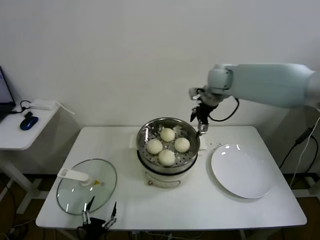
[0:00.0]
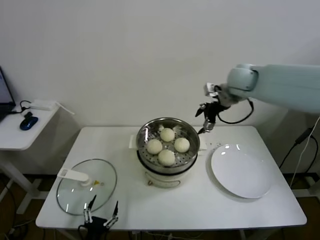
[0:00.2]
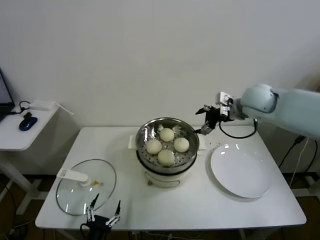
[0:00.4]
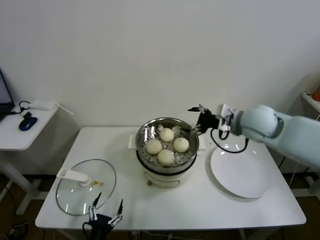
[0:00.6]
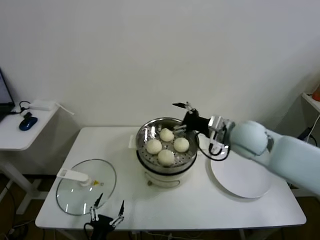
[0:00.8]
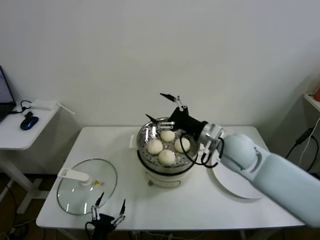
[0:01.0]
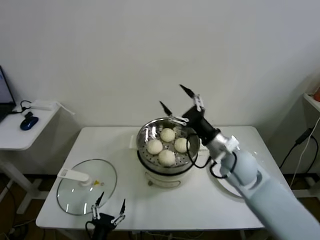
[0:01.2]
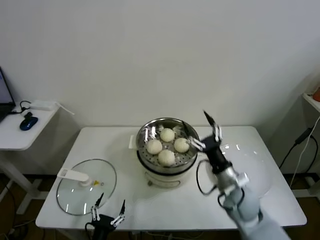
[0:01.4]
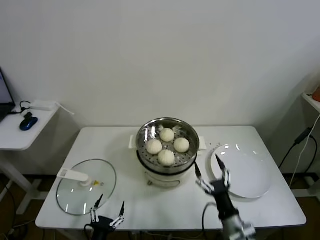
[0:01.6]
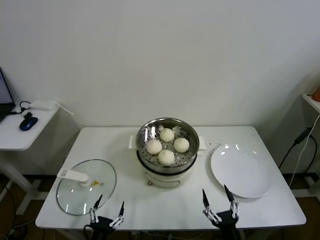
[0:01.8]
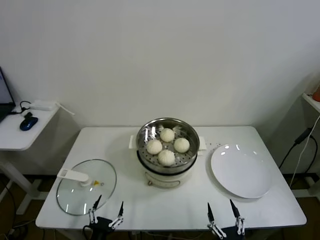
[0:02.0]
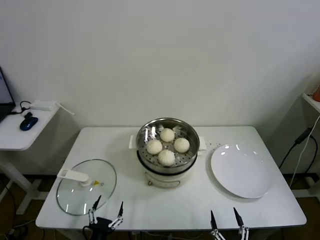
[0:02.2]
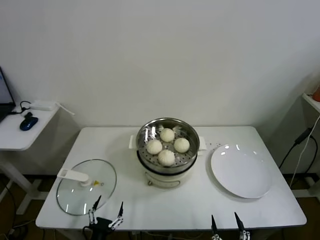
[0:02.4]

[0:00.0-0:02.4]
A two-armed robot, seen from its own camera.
Task of the whole recording: take steamed baozi put them in steamer.
0:00.0 to 0:01.2: The right gripper shifts approximately 25 cm backward and downward.
0:01.2 to 0:02.4: The right gripper travels backward and downward by about 40 cm.

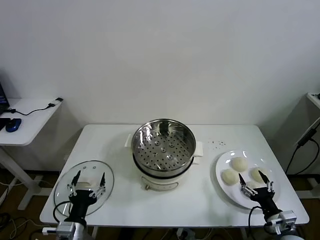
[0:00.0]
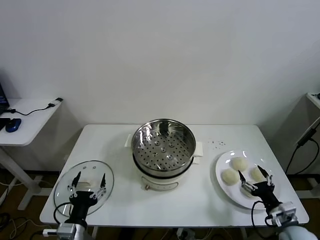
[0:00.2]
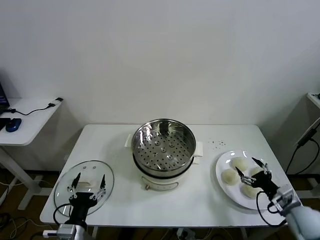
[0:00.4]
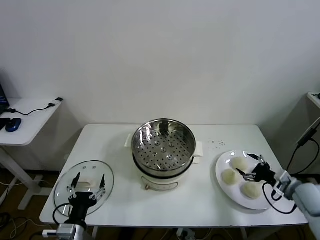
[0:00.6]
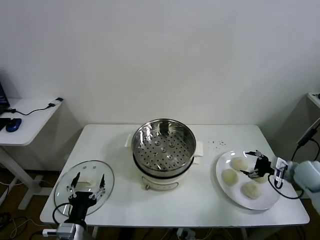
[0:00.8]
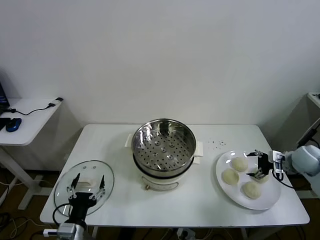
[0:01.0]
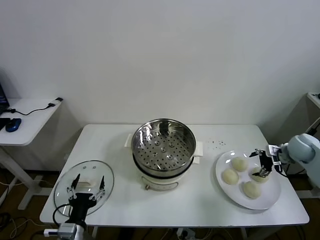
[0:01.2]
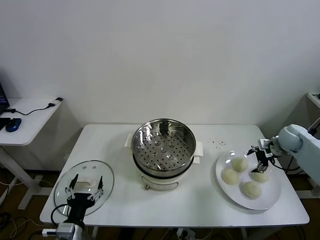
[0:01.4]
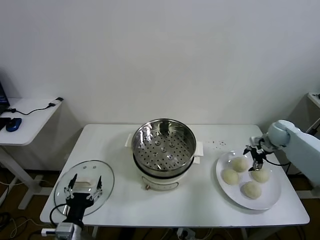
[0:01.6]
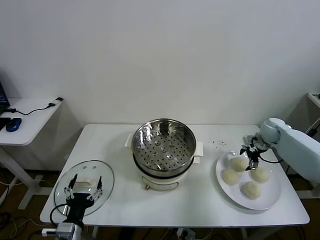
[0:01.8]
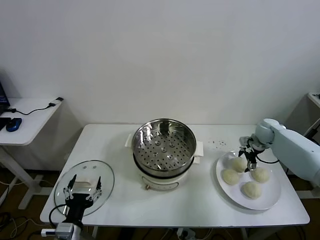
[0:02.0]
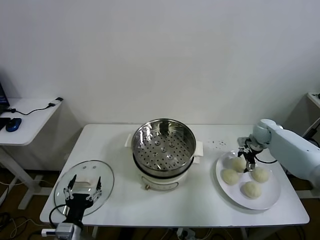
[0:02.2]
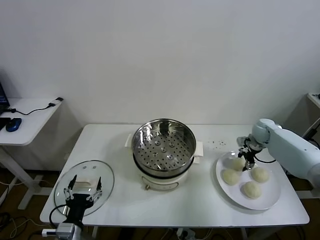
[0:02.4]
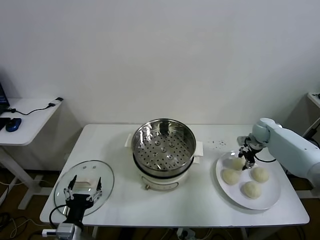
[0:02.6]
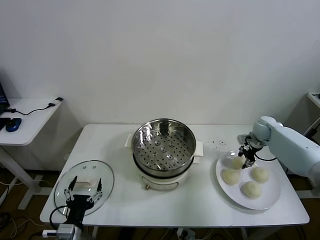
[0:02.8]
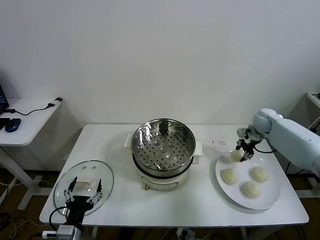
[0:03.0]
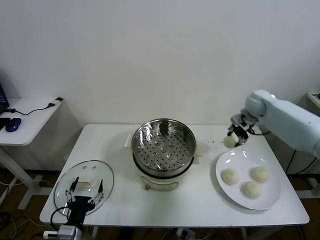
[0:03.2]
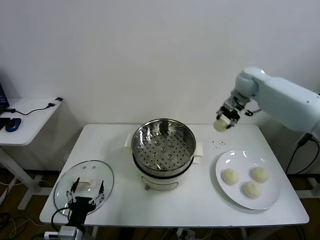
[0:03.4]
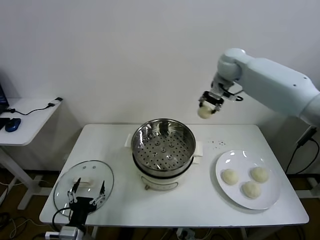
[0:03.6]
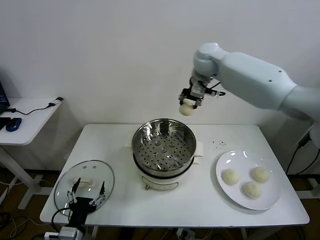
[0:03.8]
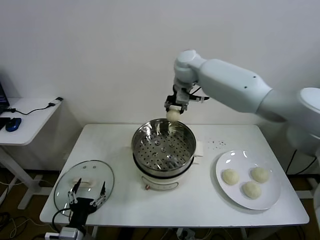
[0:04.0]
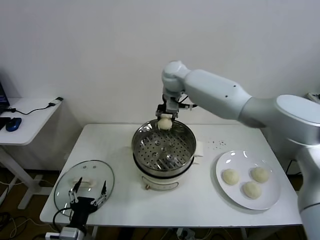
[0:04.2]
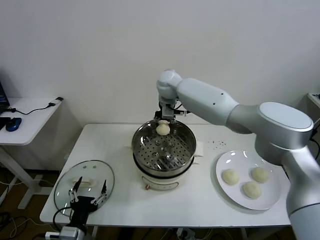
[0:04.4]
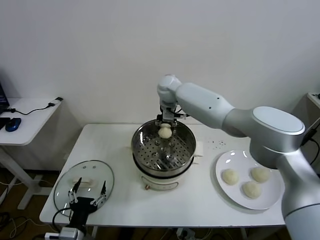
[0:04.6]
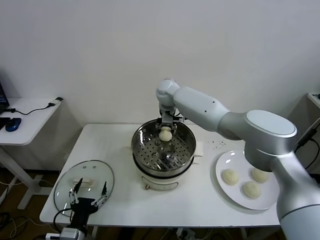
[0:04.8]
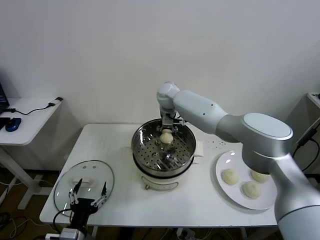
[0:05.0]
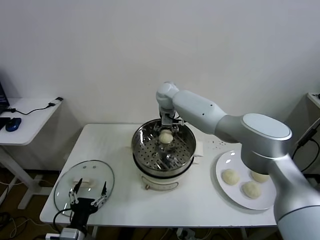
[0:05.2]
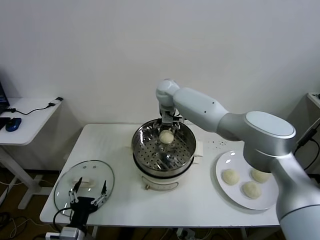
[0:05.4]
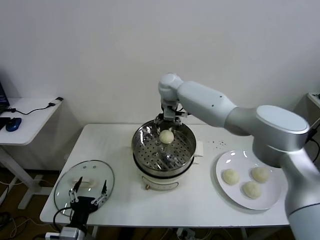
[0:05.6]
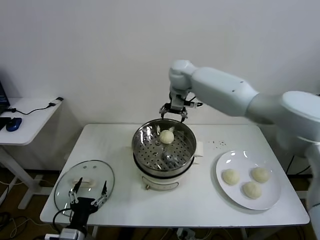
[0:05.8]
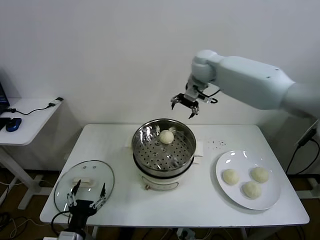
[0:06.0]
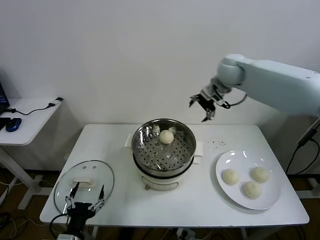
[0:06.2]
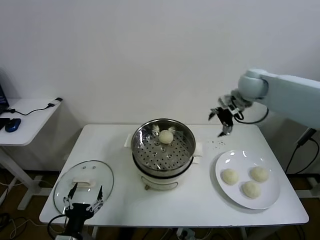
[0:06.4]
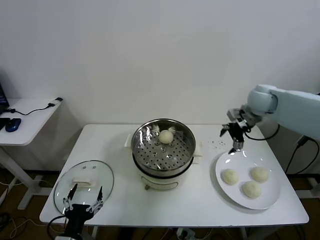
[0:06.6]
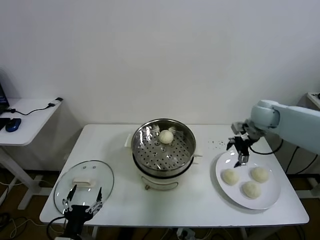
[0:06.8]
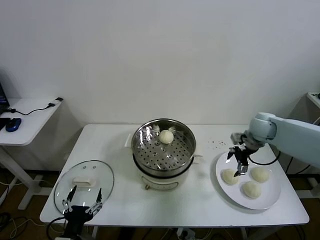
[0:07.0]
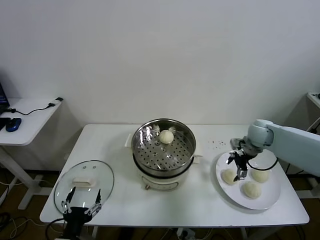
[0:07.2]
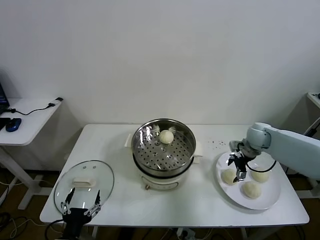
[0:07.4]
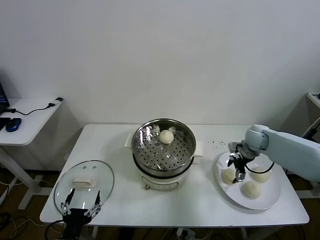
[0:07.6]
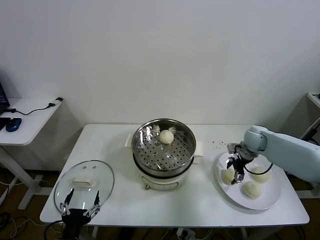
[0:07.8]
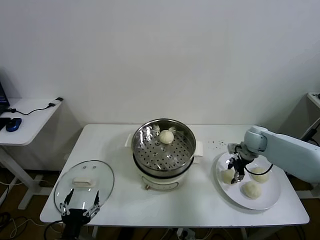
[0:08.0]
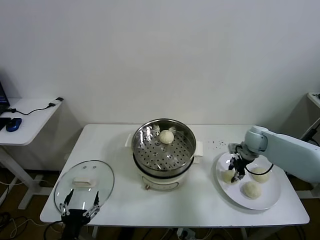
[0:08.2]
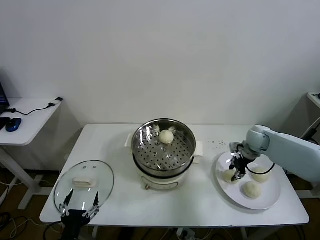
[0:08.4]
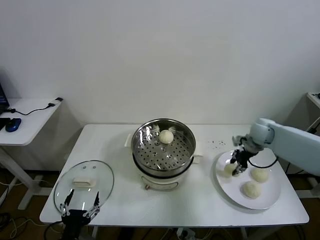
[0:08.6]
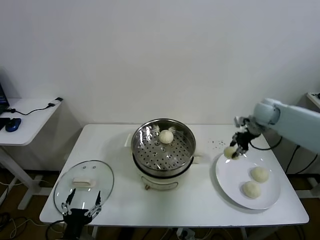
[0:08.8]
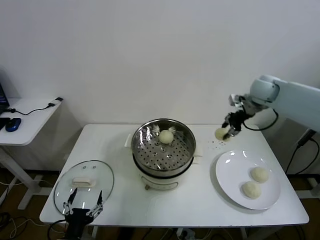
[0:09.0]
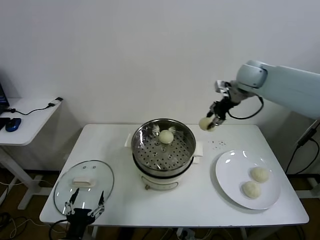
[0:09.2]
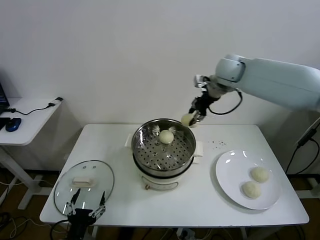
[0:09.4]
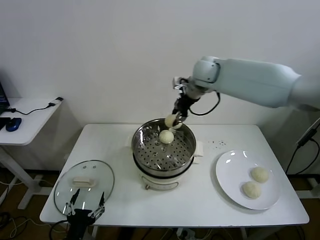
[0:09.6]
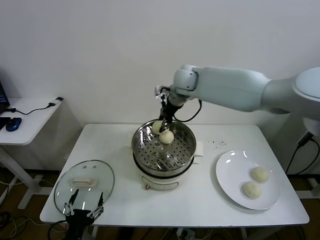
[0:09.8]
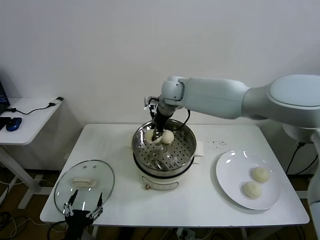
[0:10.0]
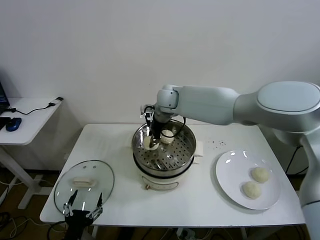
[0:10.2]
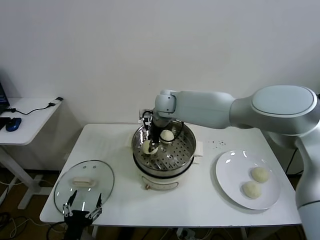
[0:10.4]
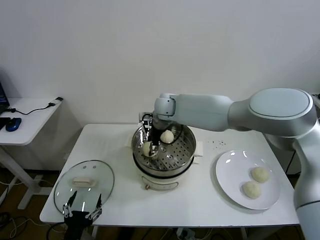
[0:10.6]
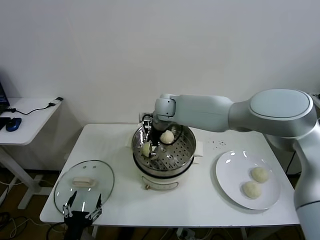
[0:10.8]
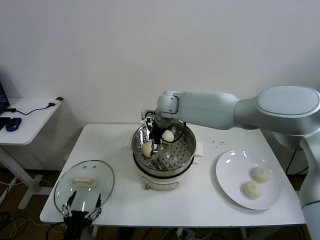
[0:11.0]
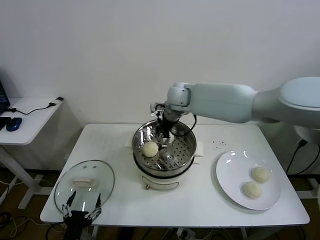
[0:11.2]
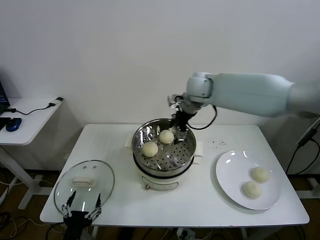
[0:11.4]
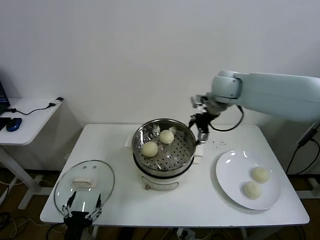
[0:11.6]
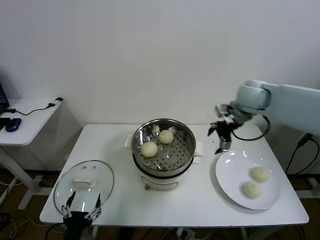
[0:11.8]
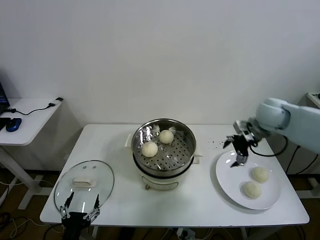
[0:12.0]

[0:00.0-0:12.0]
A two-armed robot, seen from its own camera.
Task of the whole recording: take steamed baozi put them in steamer.
Step, 0:00.0 to 0:02.2: Grasp the baozi in the plate with right gripper.
Step, 0:02.6 to 0:05.4: Place the baozi on the steamer with right gripper.
Step, 0:05.6 to 0:08.0: Grasp the baozi in the plate with right gripper.
Step, 0:08.2 to 0:10.8: Place the baozi on the steamer with right gripper.
0:01.6 to 0:03.0: The right gripper is displaced upward, to the left and forward by about 10 cm, and closes up.
0:03.0 to 0:04.4: The right gripper shifts approximately 35 cm to the left.
0:04.4 to 0:06.0: The right gripper is displaced to the right and upward by approximately 20 cm, and opens up.
0:06.0 to 0:07.6: The right gripper shifts about 30 cm downward and to the right.
0:07.6 to 0:09.0: The right gripper heads upward, covering approximately 20 cm, and closes.
0:09.0 to 0:10.4: The right gripper is displaced to the left by approximately 30 cm.
0:10.4 to 0:12.0: The right gripper shifts about 35 cm to the right, and opens its fingers.

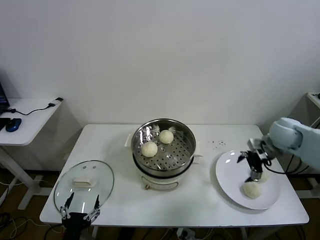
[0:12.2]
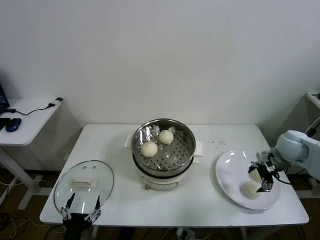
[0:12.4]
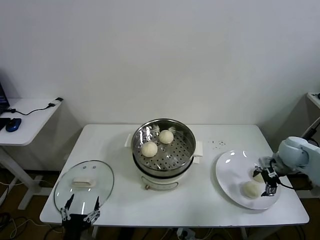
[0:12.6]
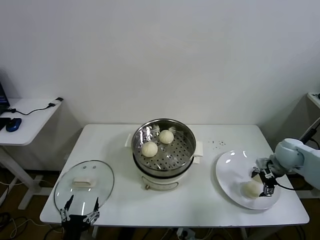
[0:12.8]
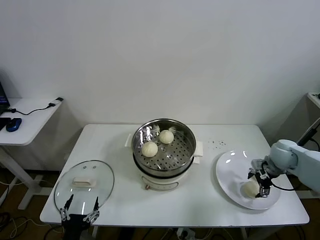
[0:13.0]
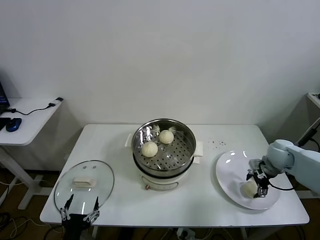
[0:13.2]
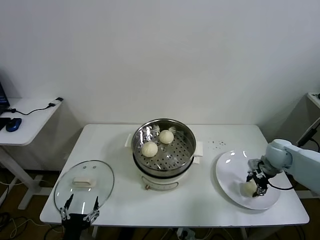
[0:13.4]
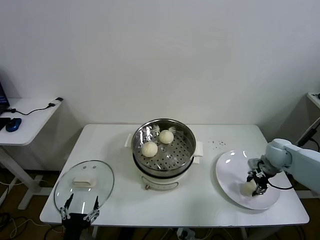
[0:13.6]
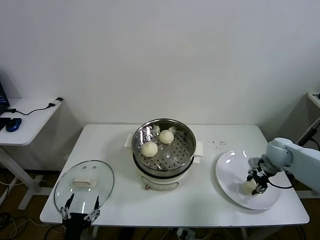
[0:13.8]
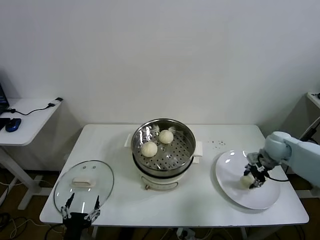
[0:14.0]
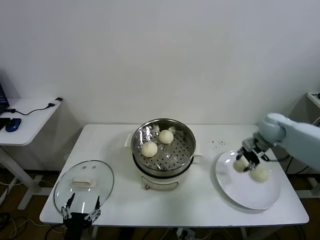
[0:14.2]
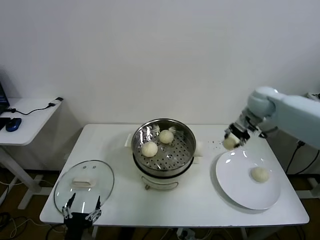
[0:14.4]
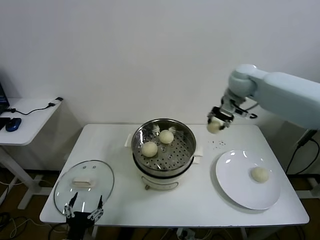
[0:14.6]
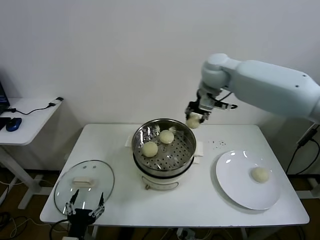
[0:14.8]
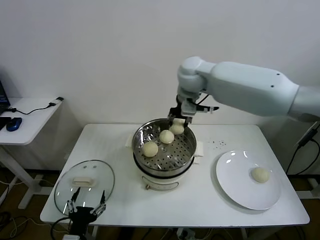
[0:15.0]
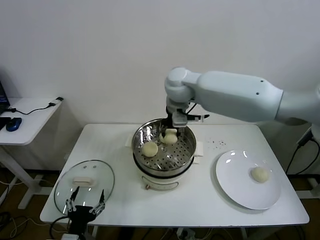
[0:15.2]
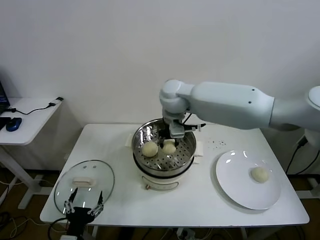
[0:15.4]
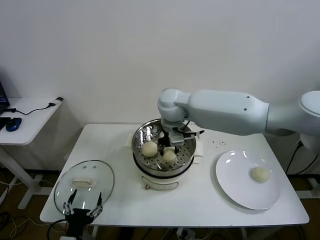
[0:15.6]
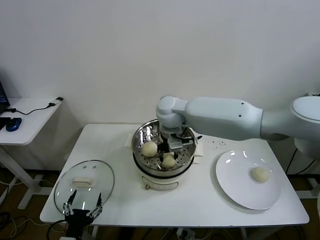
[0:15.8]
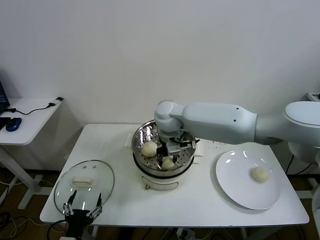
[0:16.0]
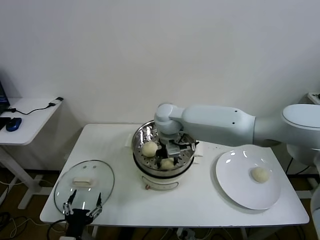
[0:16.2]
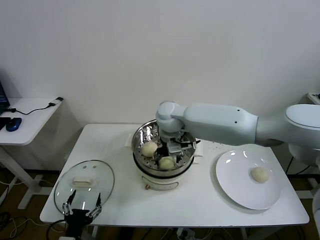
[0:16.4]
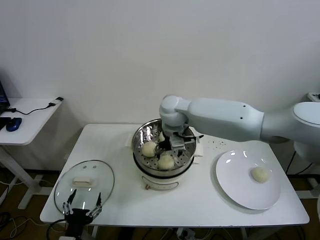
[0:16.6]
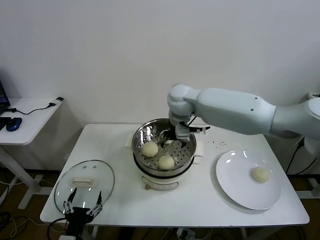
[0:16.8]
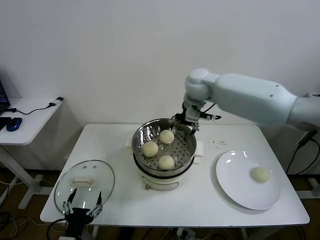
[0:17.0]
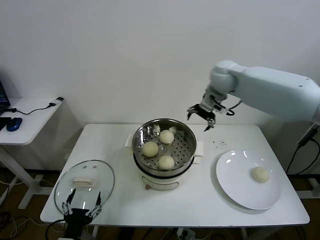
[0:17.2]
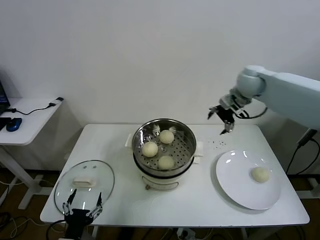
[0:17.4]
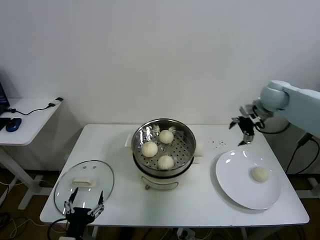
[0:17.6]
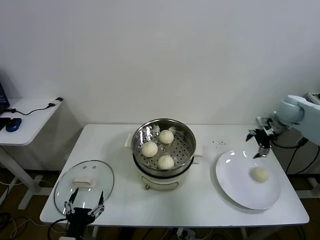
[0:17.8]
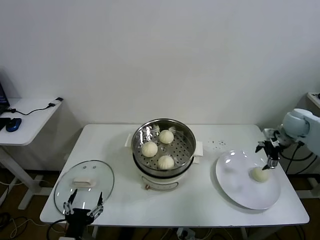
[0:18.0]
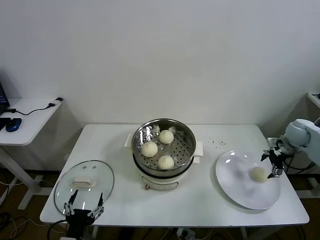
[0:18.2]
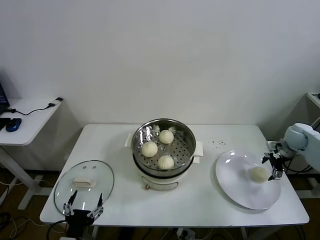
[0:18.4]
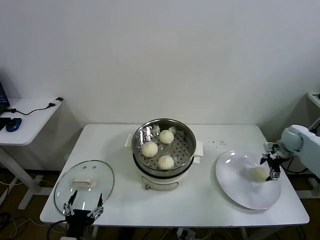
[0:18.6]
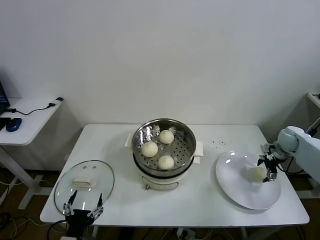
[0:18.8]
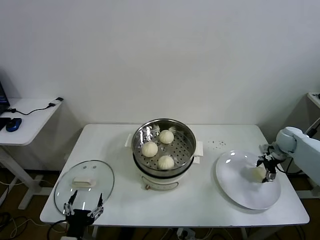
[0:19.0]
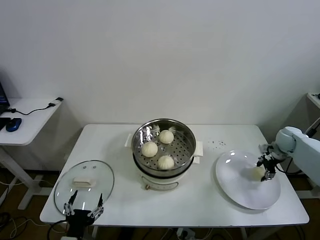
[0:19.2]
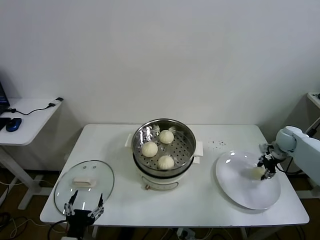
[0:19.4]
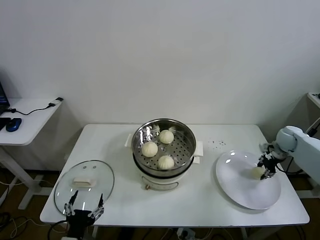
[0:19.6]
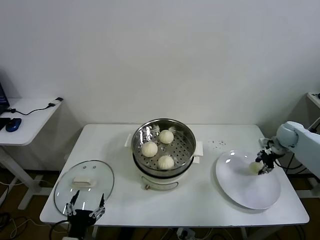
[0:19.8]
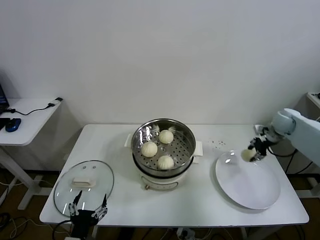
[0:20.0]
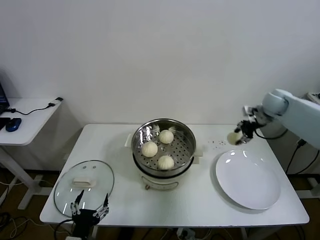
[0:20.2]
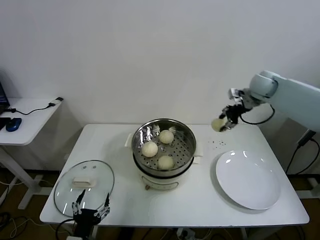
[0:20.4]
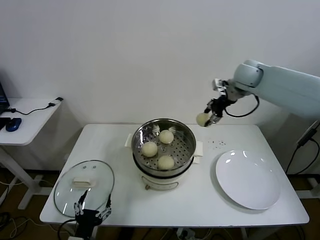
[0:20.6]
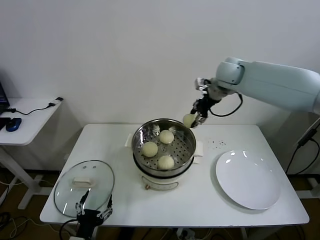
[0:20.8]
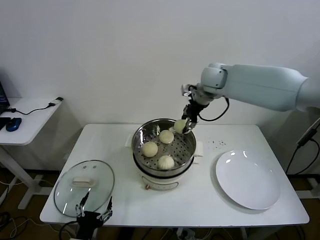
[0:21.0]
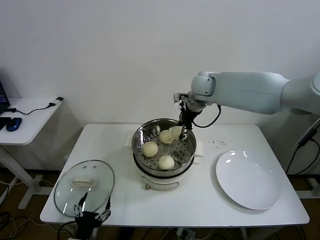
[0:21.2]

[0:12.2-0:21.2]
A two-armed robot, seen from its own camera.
Task of the whole recording: take steamed baozi put them in steamer.
Step, 0:13.8 to 0:16.4: Place the baozi on the steamer with right gripper.
Step, 0:16.8 to 0:19.0: Grasp the baozi in the plate with right gripper.
0:12.2 to 0:13.8: The right gripper is displaced downward by roughly 10 cm, and closes.
0:13.8 to 0:15.2: The right gripper travels to the left and upward by some 40 cm.
0:15.2 to 0:16.6: The right gripper shifts some 10 cm downward, and opens up.
0:16.6 to 0:18.2: The right gripper goes about 50 cm to the right.
0:18.2 to 0:19.8: The right gripper closes its fingers.
0:19.8 to 0:21.2: The right gripper goes some 40 cm to the left and upward.
